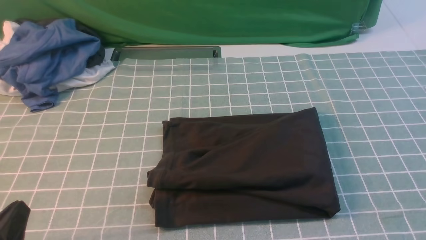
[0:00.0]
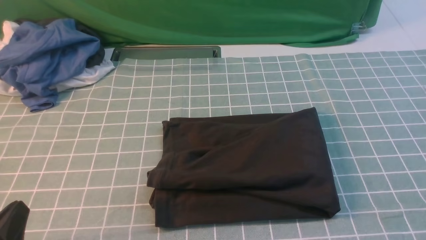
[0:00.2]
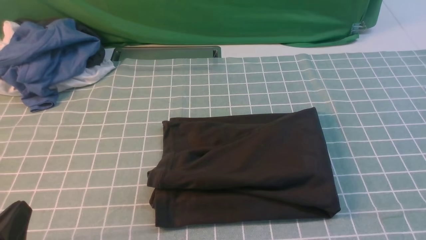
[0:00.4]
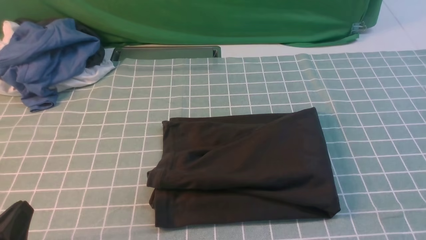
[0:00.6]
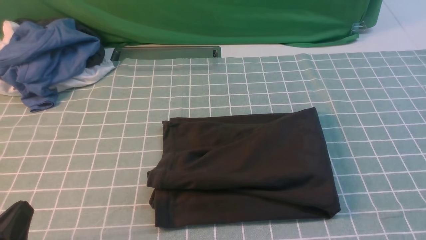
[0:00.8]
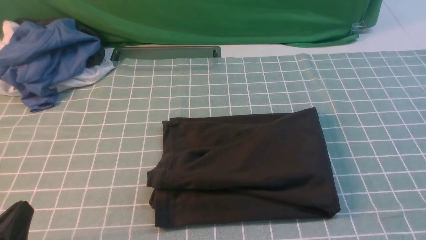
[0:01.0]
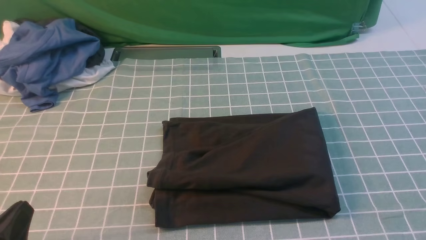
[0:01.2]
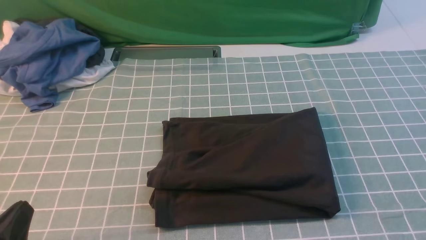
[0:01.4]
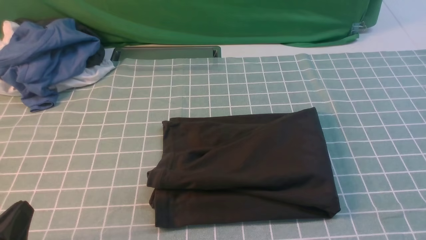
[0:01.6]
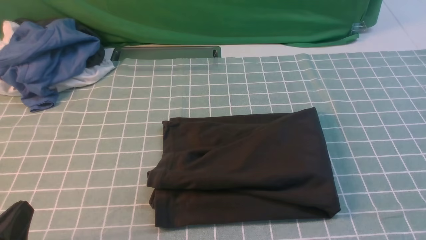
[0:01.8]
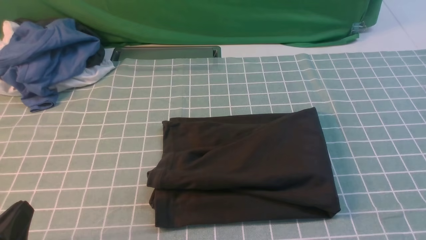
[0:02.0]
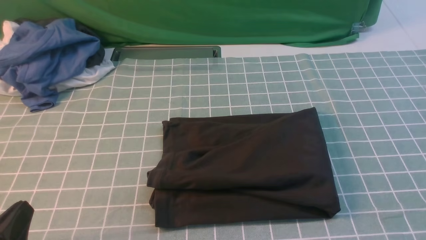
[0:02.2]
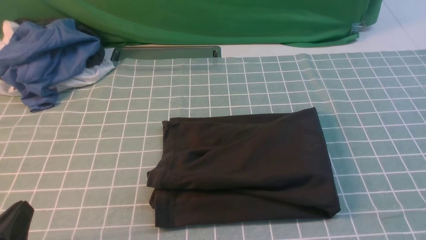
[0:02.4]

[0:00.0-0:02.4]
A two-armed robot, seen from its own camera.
0:00.0 to 0:02.4: Both grippers stay put.
